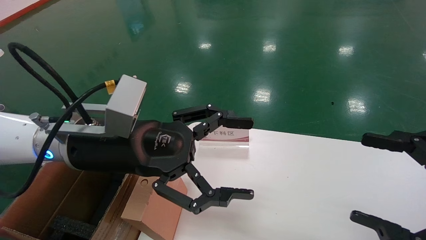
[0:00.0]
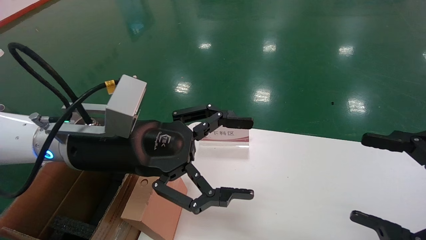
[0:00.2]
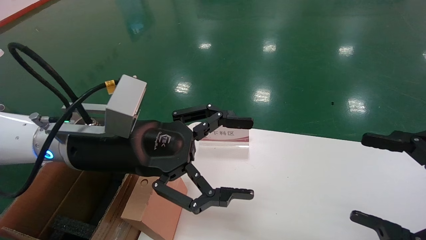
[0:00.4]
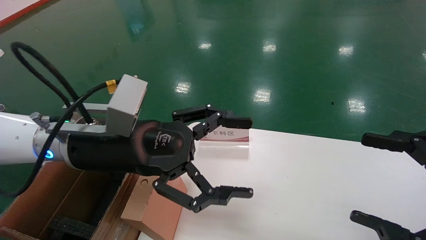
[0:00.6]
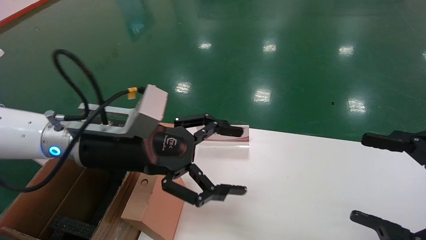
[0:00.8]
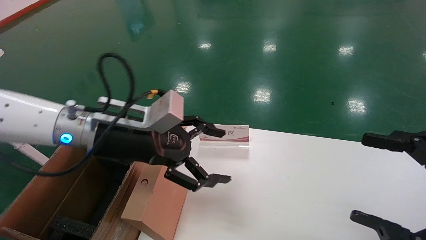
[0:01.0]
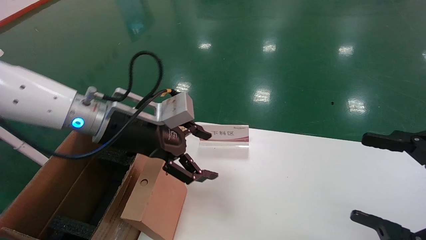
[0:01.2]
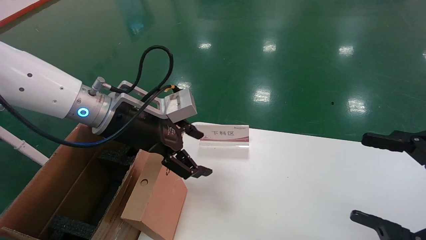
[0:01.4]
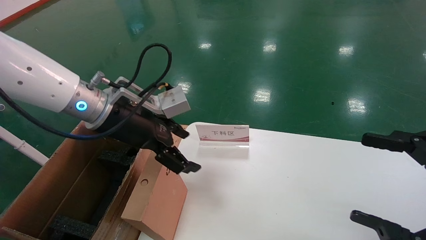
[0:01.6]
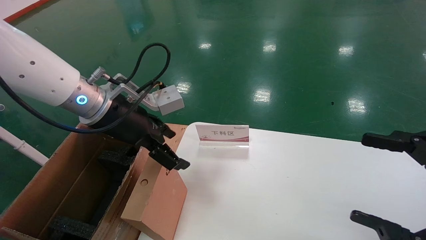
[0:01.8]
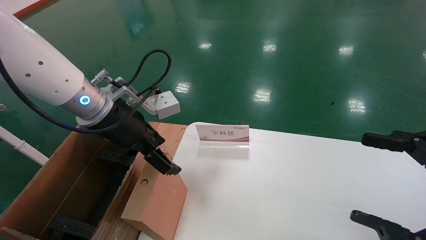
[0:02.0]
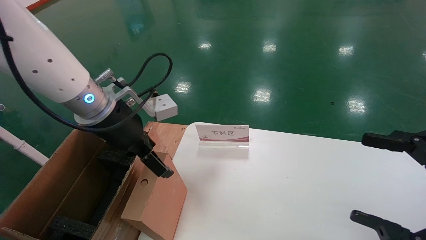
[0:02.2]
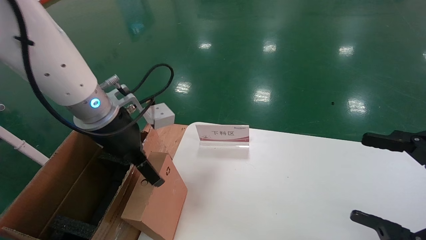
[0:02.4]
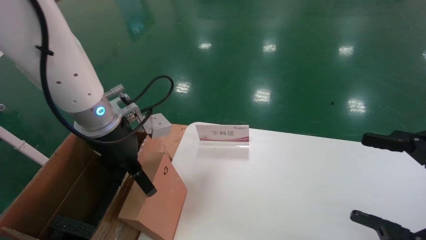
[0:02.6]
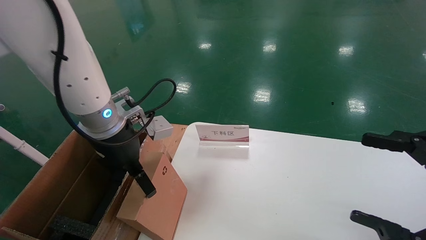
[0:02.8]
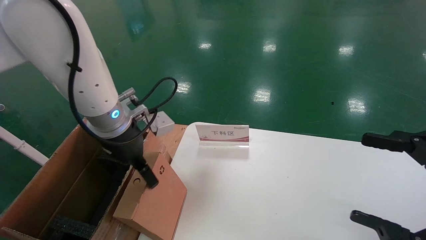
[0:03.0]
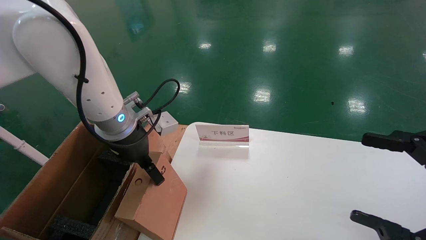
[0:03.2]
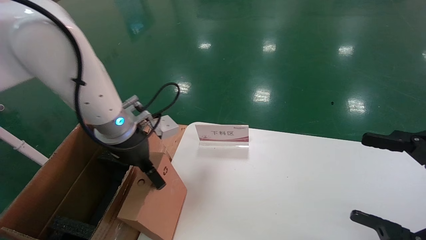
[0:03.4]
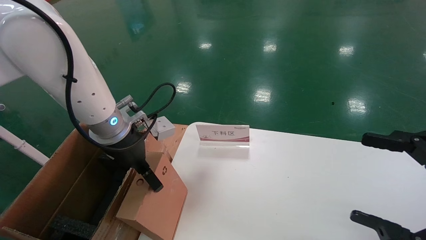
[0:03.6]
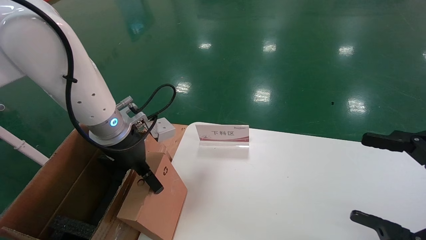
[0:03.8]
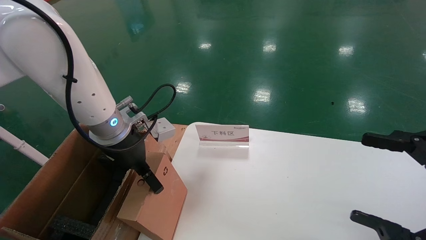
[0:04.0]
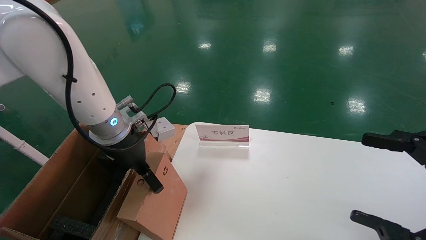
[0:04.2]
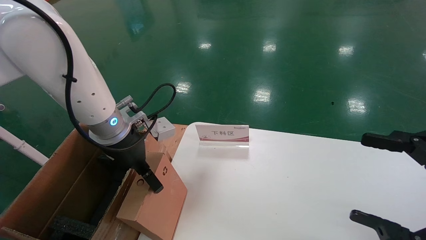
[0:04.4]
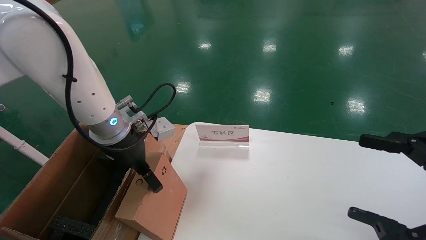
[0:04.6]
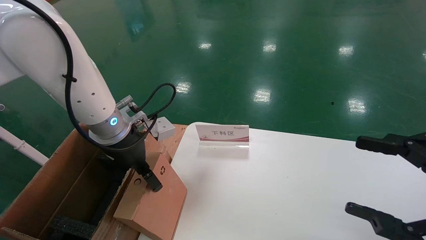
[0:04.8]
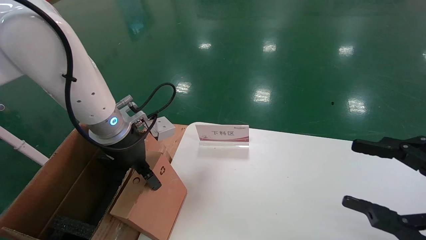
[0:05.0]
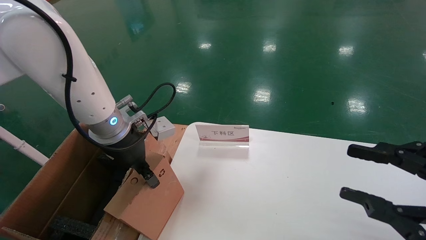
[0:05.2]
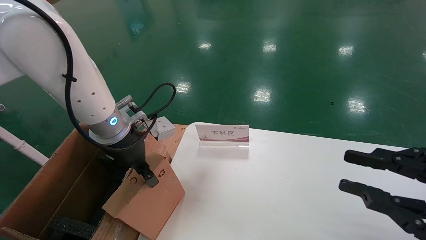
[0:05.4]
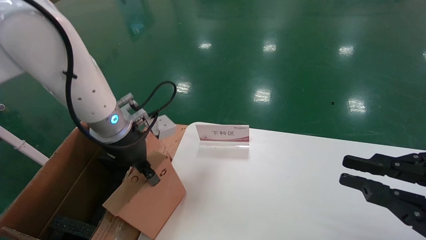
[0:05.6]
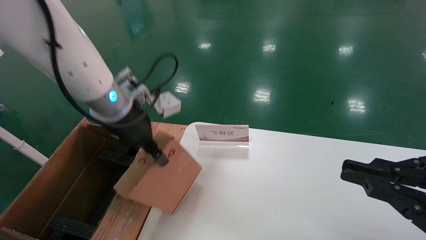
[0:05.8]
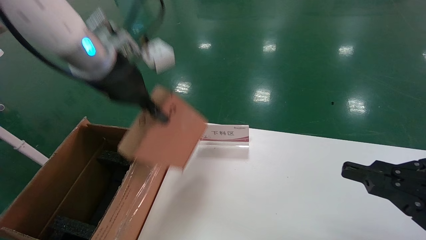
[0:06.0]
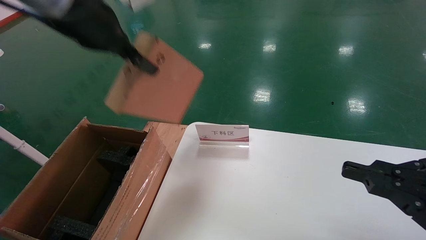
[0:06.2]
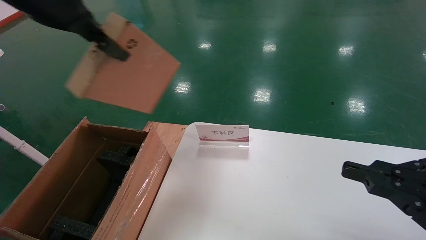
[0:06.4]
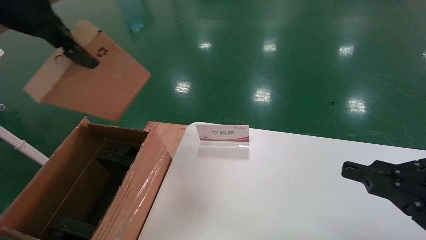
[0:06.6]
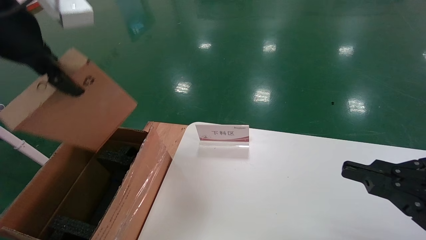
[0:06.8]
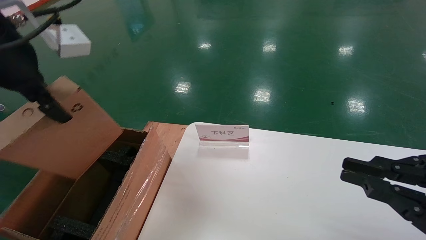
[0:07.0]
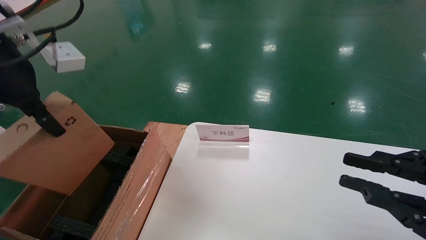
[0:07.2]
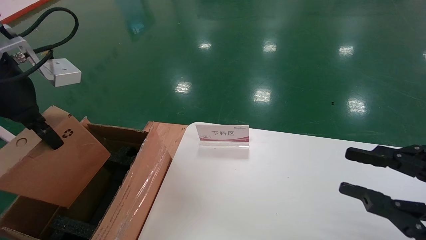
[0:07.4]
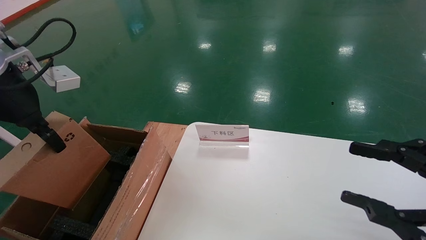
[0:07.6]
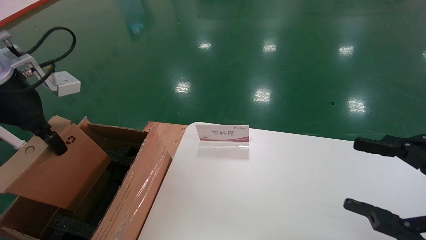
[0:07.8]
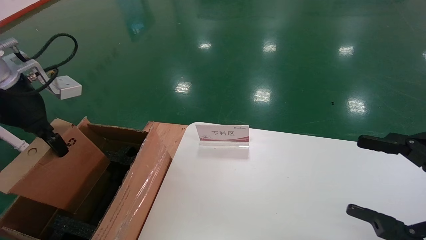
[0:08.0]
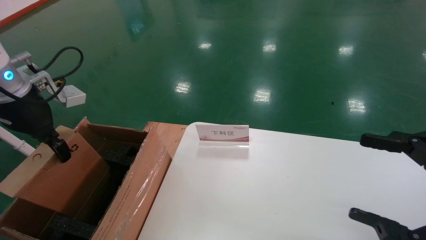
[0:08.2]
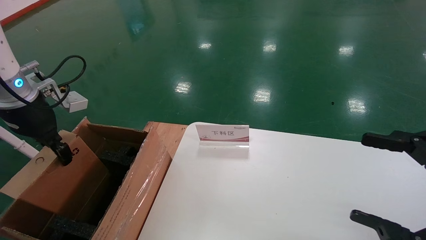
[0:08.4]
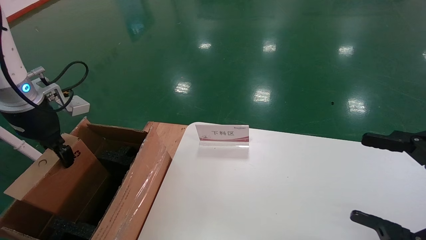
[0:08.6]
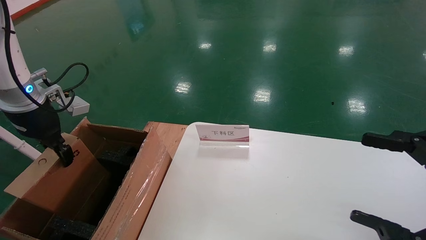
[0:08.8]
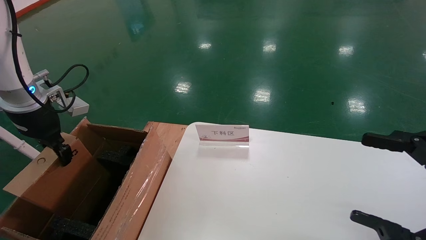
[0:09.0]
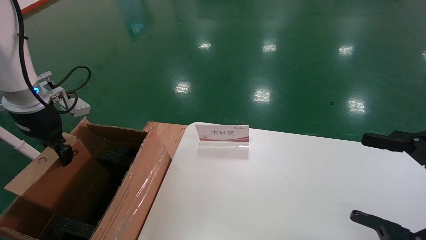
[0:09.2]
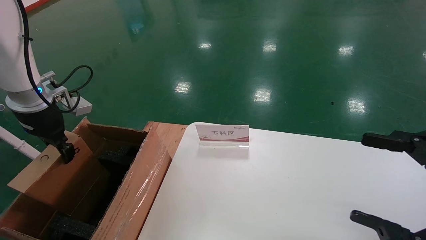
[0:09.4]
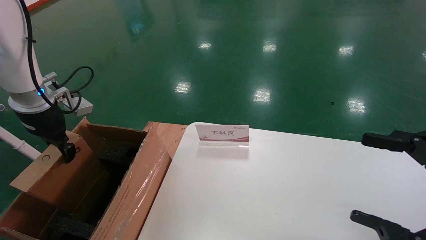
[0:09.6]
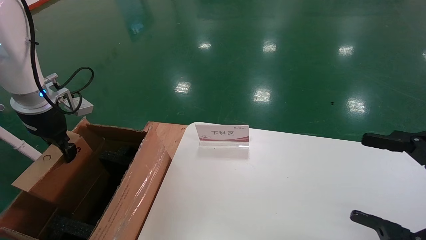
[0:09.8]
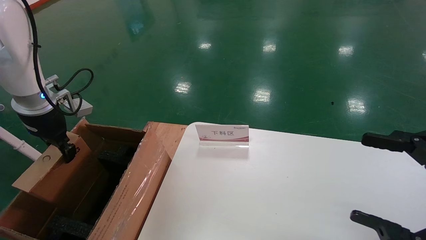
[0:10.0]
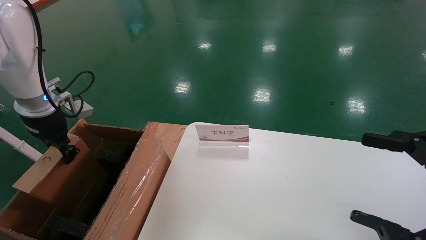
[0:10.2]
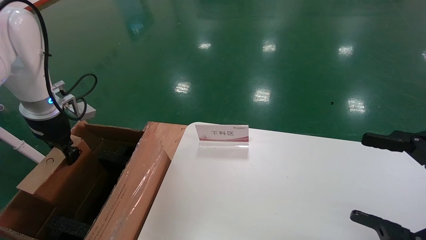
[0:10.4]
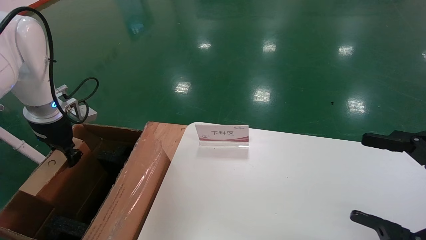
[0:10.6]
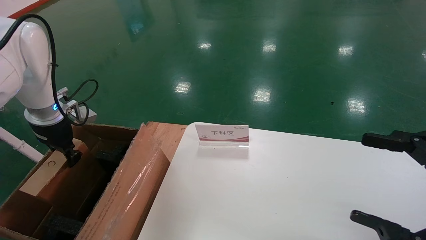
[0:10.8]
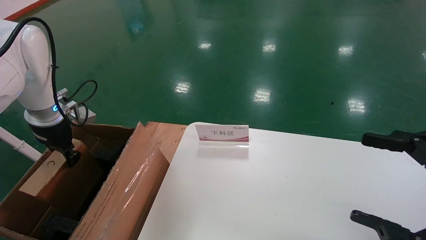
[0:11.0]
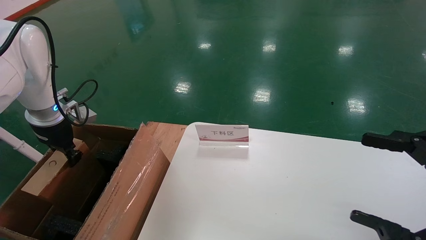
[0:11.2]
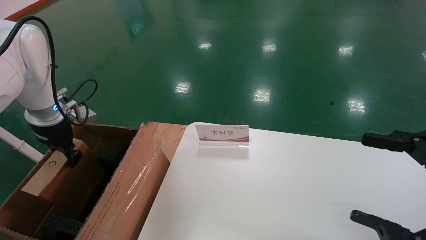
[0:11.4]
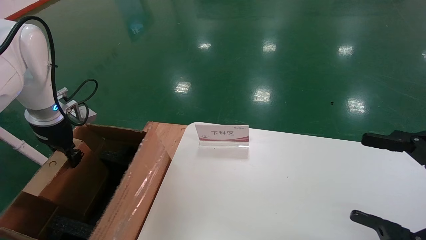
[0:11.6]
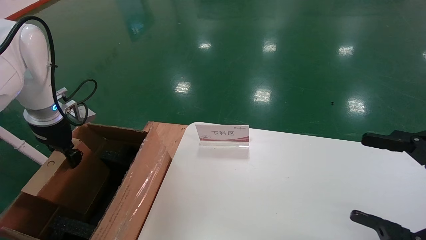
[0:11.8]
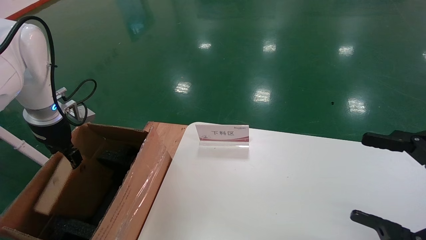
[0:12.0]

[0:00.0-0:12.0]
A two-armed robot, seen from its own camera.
Task of the whole recording: pick up the small cardboard box and load it into the large cardboard box.
Step, 0:01.0 to 0:05.4: Pick up the mouse and power cord box.
0:00.0 to 0:01.6: The left gripper goes about 5 cm forward.
0:03.0 to 0:04.4: The grippers stay close to where they were, moving slightly.
0:04.4 to 0:06.0: The right gripper closes its fingers. The left gripper travels upward by some 15 cm, and closes its fingers.
0:06.0 to 0:07.6: The left gripper shifts about 15 cm to the left and backward. The right gripper opens up.
0:07.6 to 0:09.0: The right gripper opens up; the left gripper travels downward, forward and to the left by roughly 15 cm.
0:09.0 to 0:10.4: There are only small adjustments of the grippers.
0:10.4 to 0:12.0: The left gripper opens its fingers.

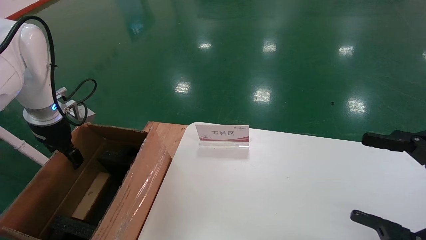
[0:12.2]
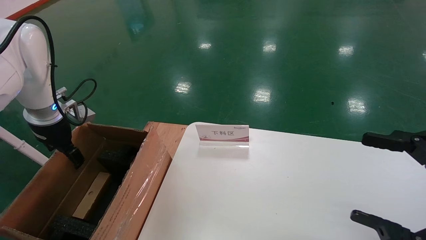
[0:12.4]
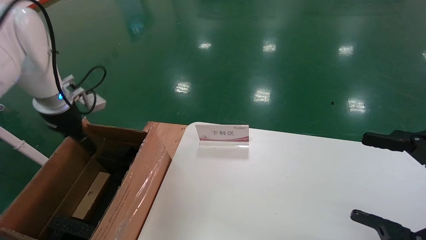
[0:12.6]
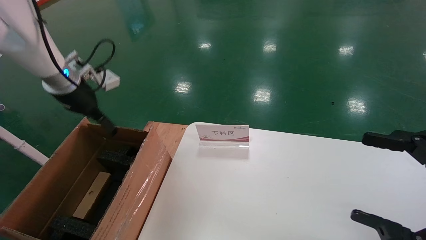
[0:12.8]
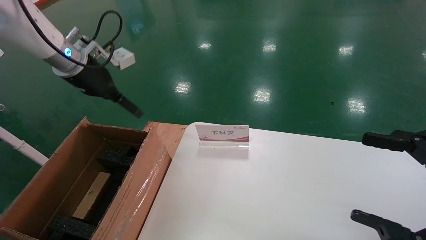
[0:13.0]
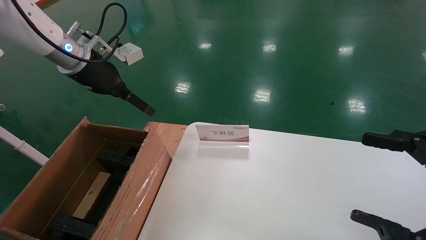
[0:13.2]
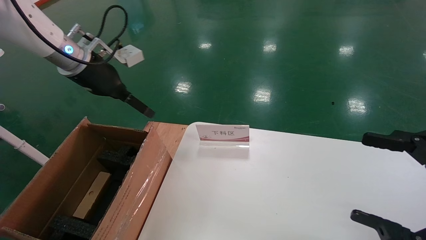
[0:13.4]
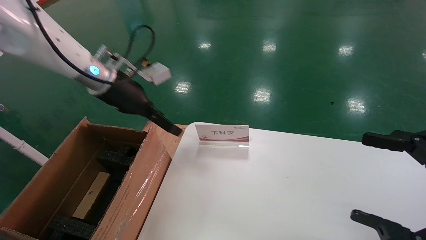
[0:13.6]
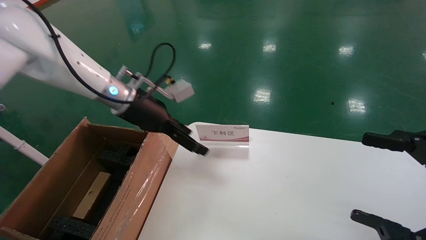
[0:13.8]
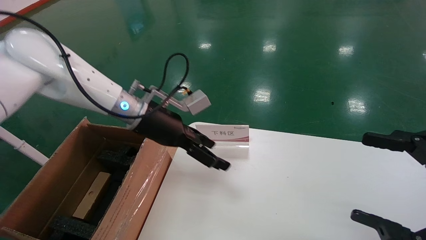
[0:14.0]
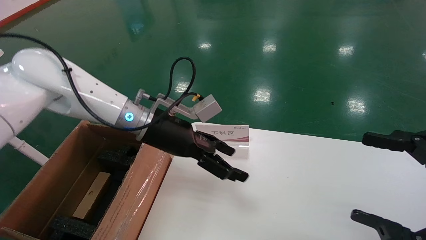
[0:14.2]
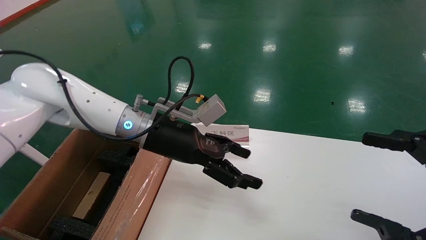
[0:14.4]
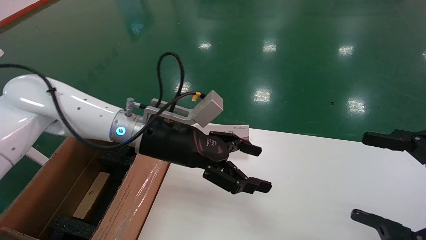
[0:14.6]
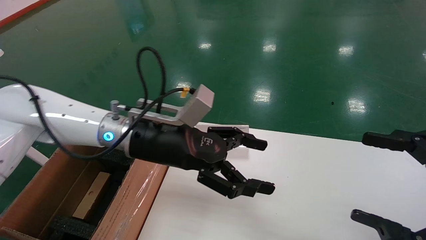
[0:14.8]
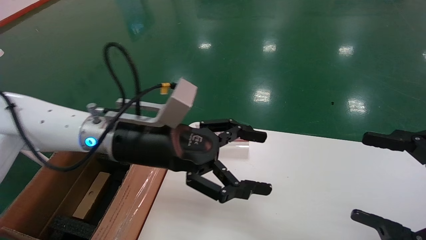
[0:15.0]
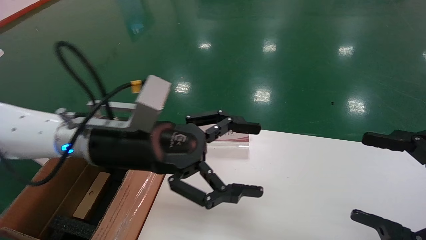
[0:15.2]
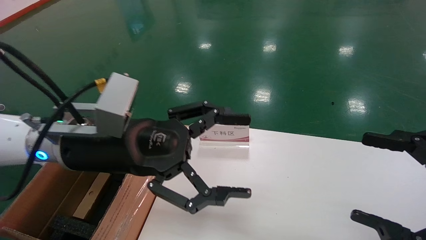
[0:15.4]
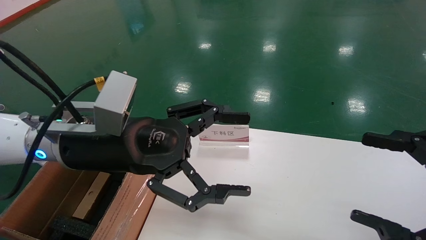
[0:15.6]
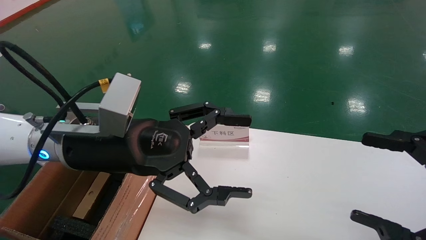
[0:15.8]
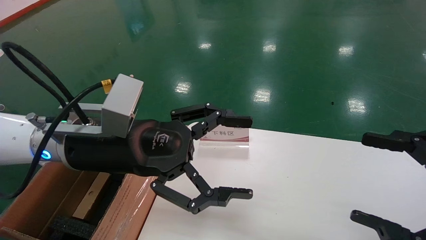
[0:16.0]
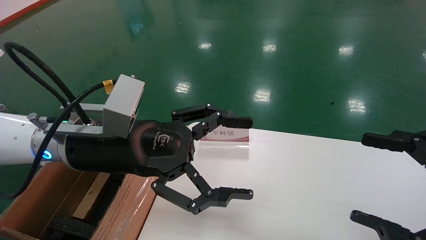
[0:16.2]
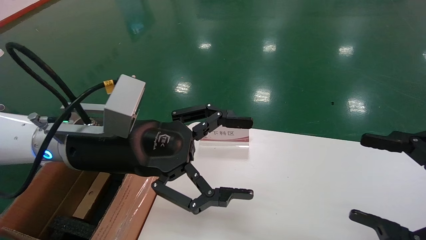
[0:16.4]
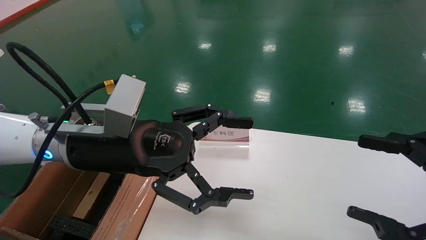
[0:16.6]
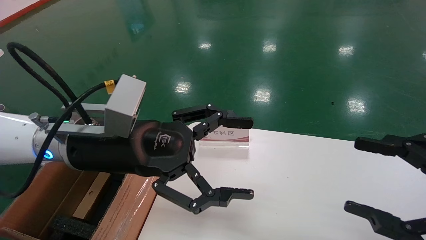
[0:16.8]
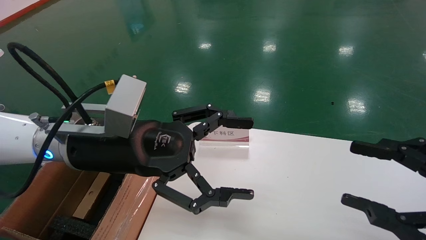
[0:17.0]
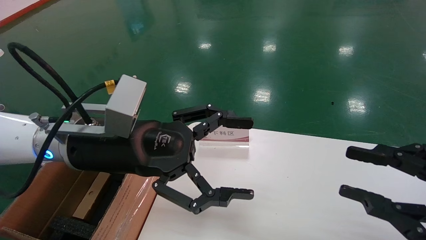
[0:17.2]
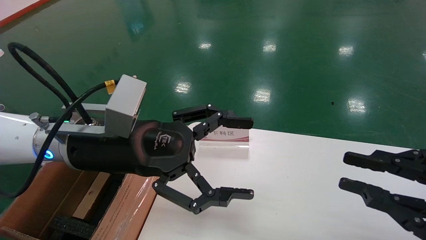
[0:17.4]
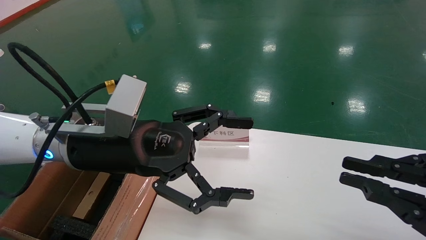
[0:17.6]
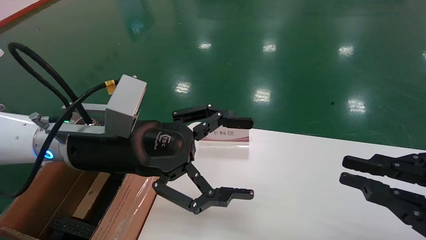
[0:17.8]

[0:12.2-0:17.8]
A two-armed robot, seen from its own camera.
Task of the whole recording: pick up the small cardboard box and load it into the large cardboard box.
0:12.2 to 0:13.6: The left gripper travels to the right by approximately 15 cm, and opens up.
0:13.6 to 0:15.0: The left gripper shifts about 15 cm backward and to the right.
0:15.0 to 0:16.4: The left gripper shifts by approximately 5 cm.
0:16.4 to 0:17.8: The right gripper closes up.
